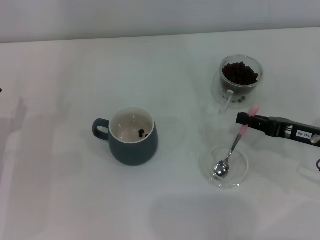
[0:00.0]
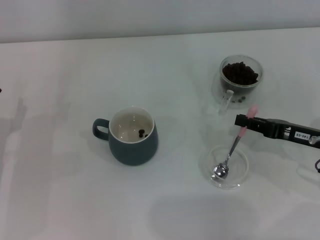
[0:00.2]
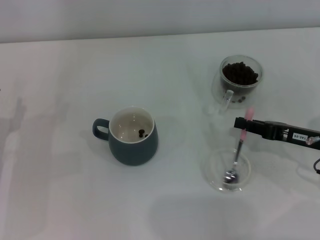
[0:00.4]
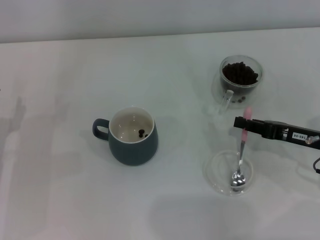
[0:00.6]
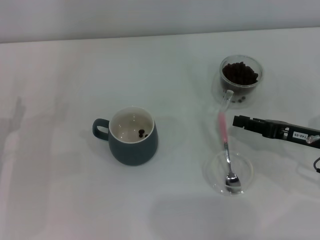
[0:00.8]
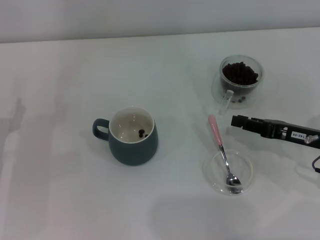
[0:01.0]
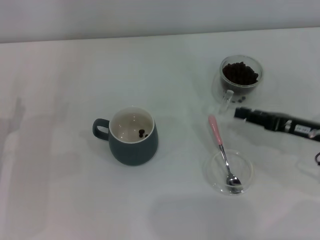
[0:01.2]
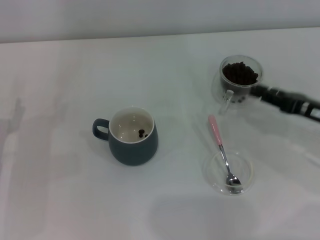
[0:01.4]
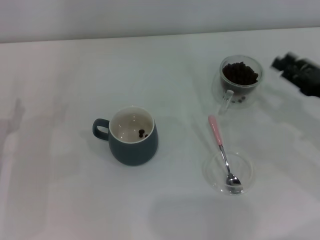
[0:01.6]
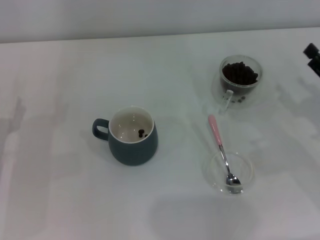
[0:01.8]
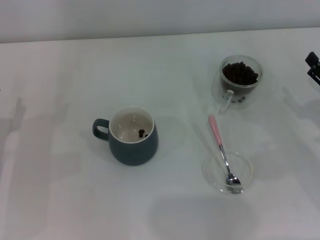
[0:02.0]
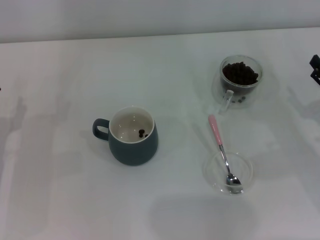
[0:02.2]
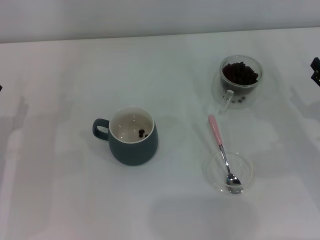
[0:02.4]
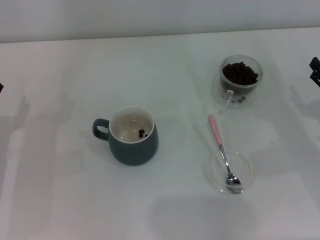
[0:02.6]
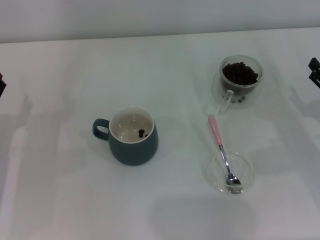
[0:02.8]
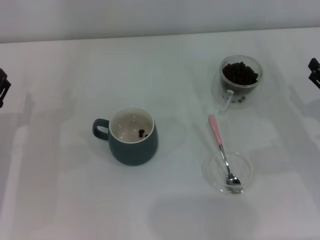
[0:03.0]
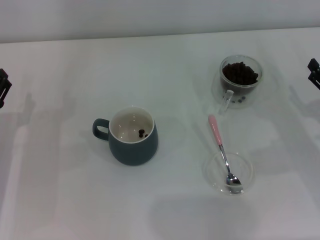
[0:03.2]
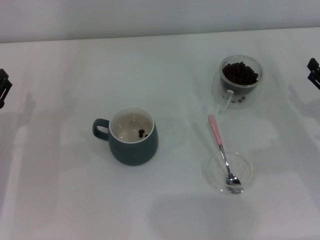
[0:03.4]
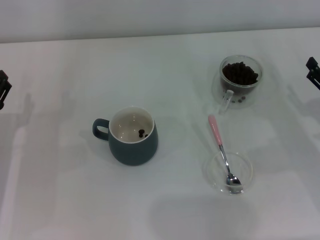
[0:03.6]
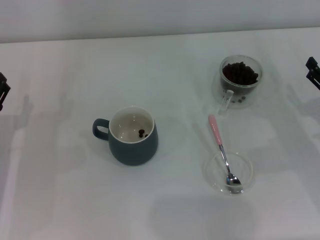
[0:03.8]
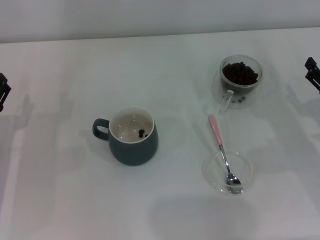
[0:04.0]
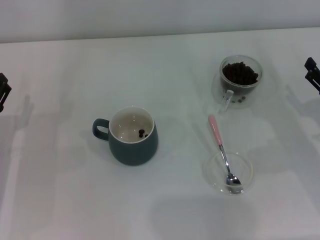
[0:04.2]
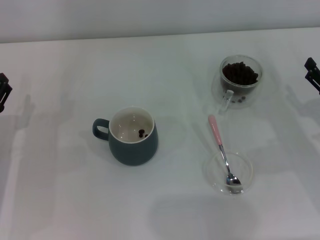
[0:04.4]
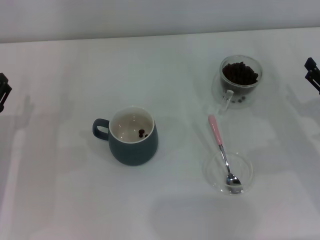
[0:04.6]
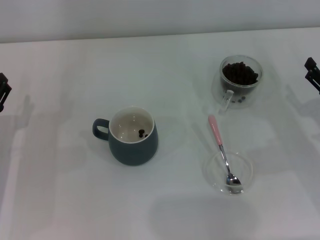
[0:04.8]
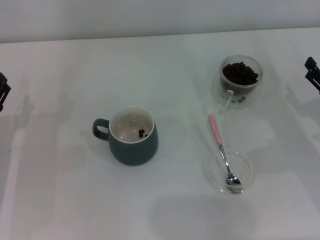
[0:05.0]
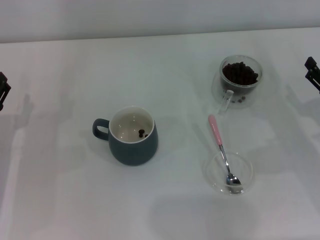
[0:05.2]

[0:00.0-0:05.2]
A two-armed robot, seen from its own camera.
Task of the whole recording: Use a pink spoon to take out the coffee beans from the glass and pour them into the gray cup.
0:00.0 to 0:01.8: The right gripper opens.
0:03.4 to 0:05.2: Both grippers stay put.
